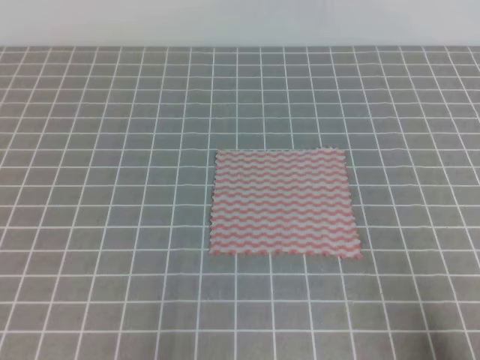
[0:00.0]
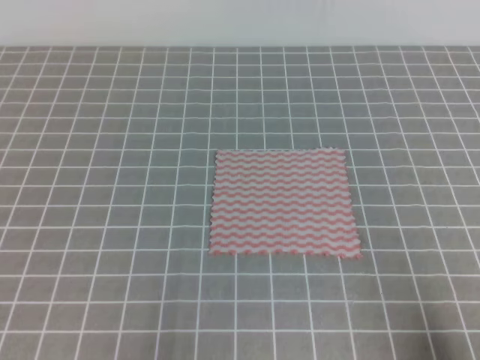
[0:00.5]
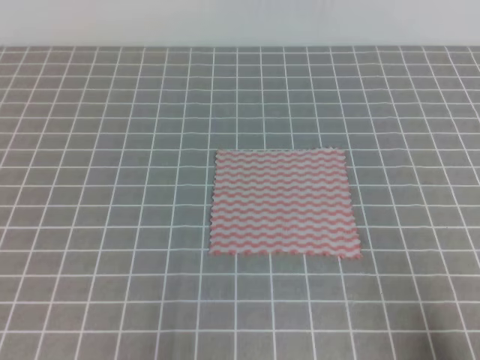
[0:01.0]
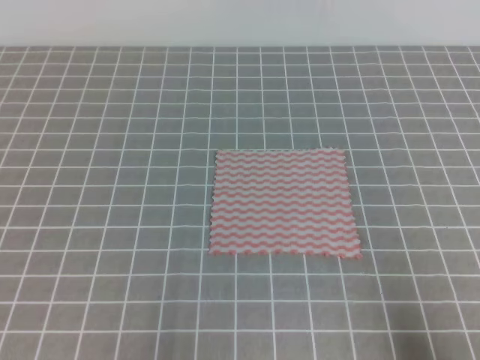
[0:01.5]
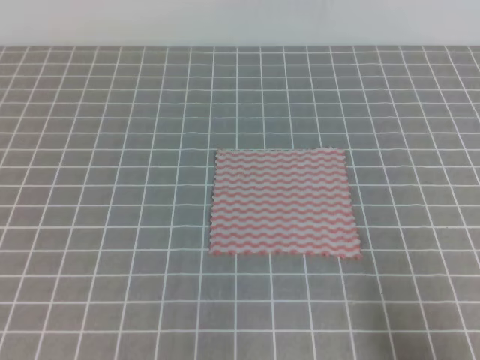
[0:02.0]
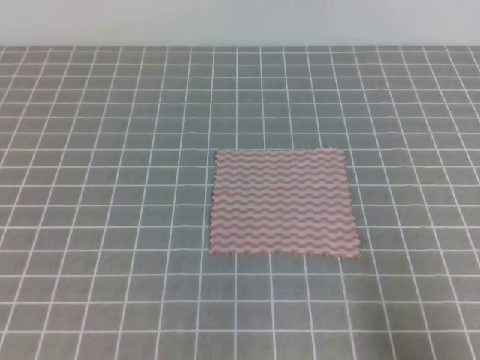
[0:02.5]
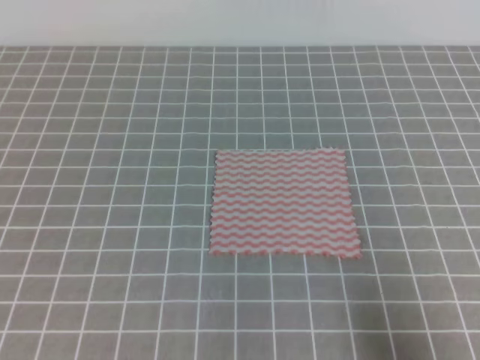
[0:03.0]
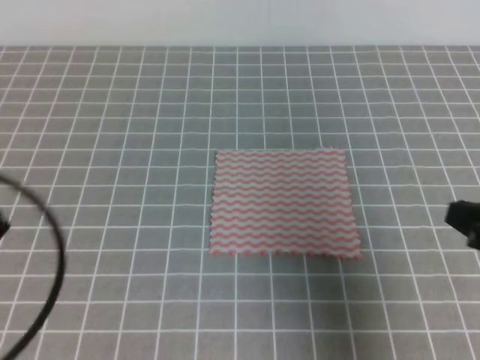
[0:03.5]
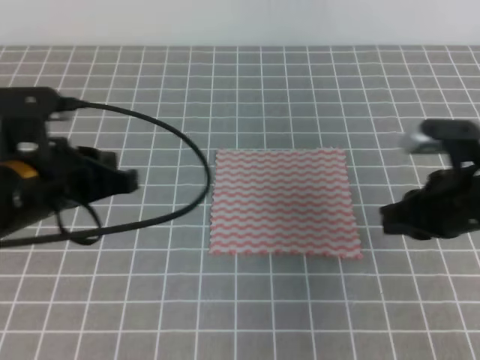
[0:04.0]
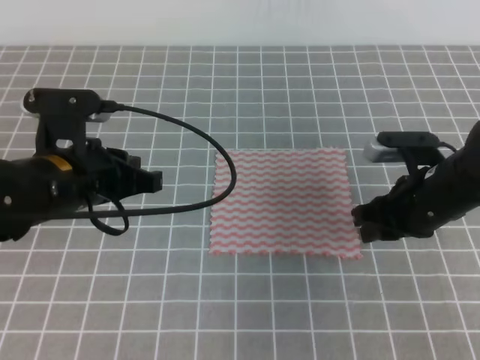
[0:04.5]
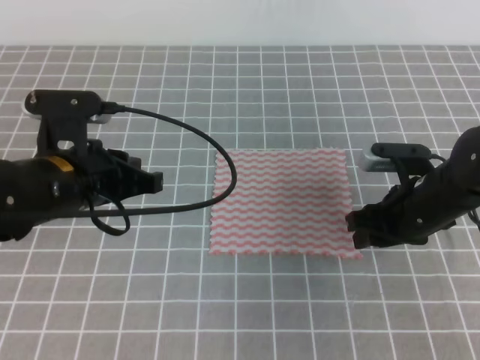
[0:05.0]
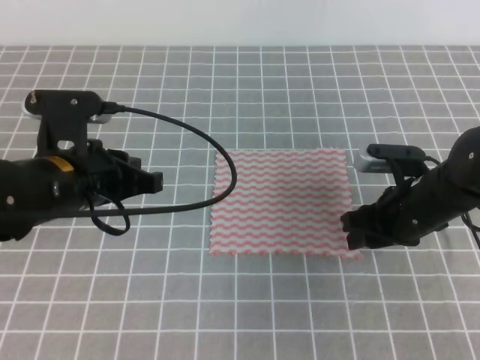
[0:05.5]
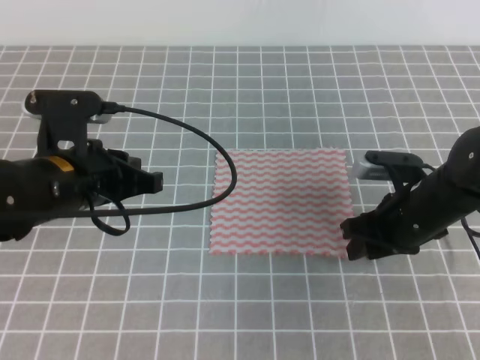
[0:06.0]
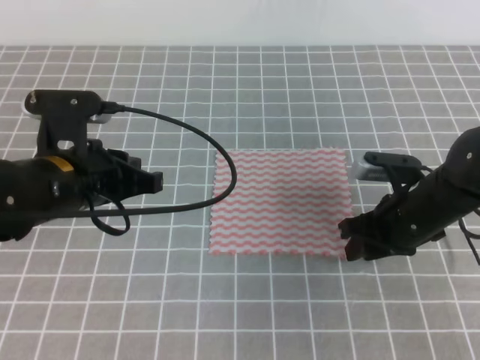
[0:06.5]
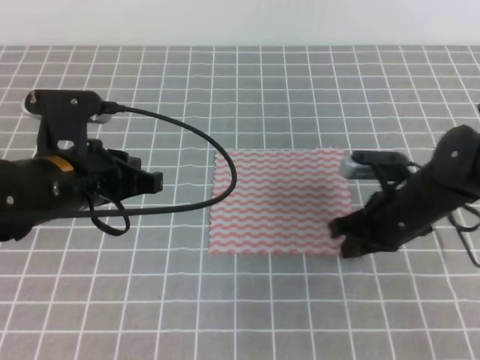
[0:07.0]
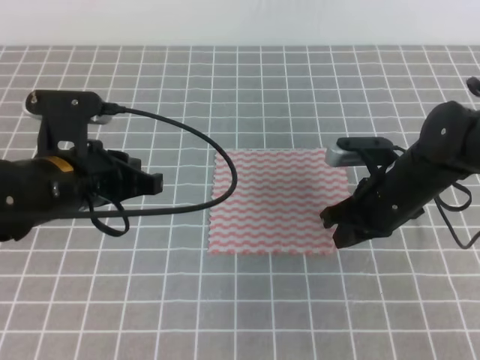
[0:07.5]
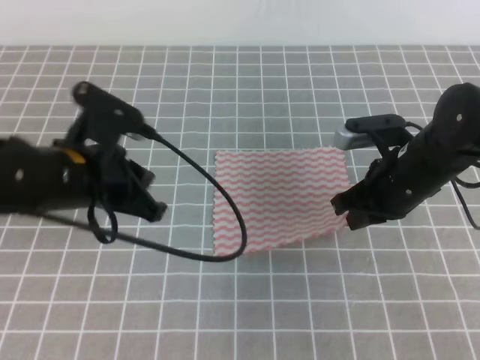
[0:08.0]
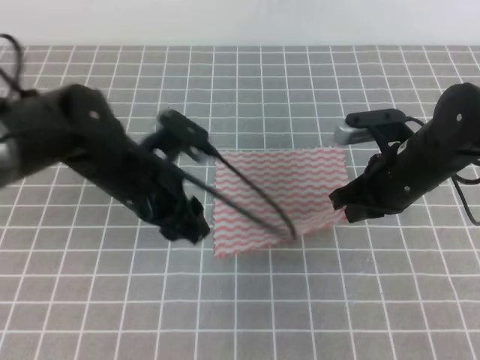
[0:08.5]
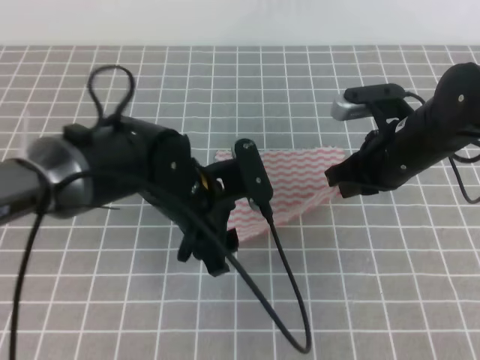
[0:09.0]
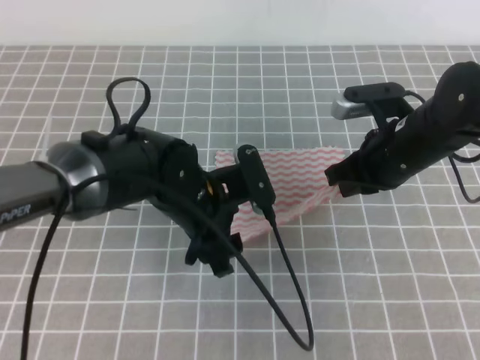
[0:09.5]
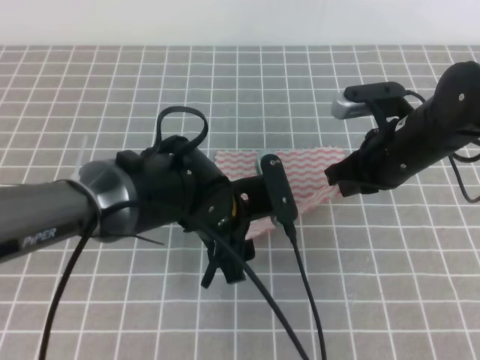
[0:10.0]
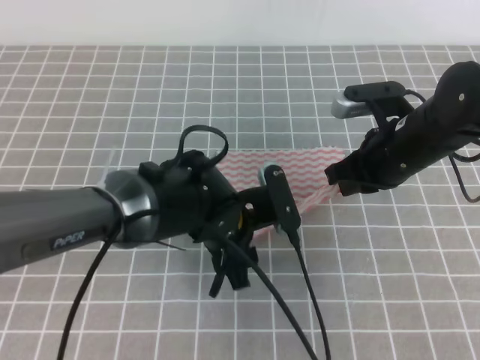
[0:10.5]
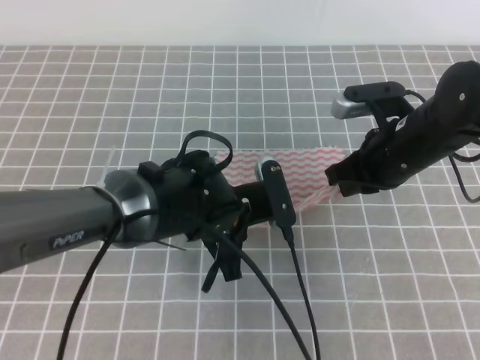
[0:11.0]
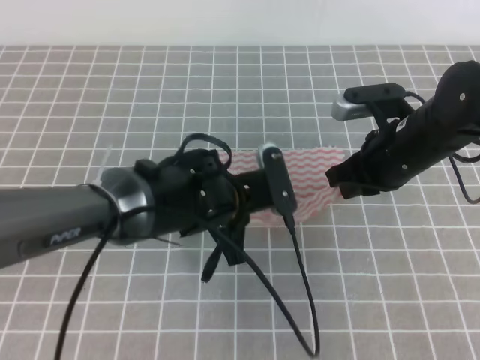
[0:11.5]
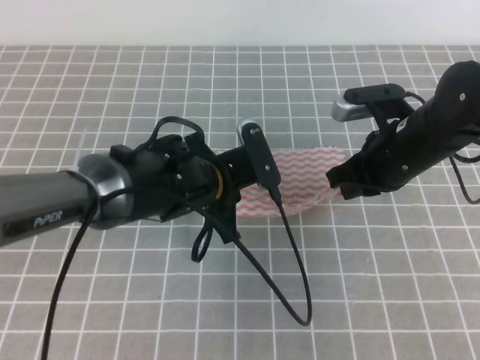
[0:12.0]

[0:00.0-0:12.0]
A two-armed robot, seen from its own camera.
0:02.0 to 0:04.0: The left gripper is displaced forward and upward by roughly 20 cm. Meanwhile the right gripper travels forward by approximately 20 cm.
0:04.0 to 0:06.0: The right gripper travels downward by roughly 5 cm, and opens.
0:06.0 to 0:08.0: The right gripper closes its fingers.
0:08.0 to 0:10.0: The left gripper is displaced to the right and downward by some 15 cm, and opens its fingers.
0:10.0 to 0:12.0: The left gripper closes its fingers.

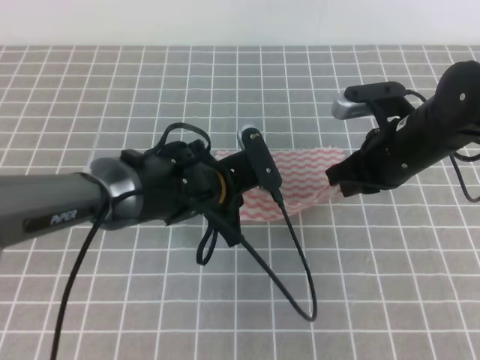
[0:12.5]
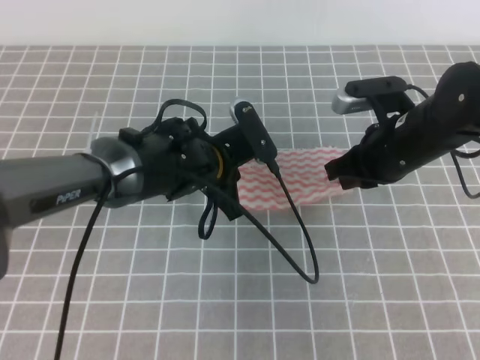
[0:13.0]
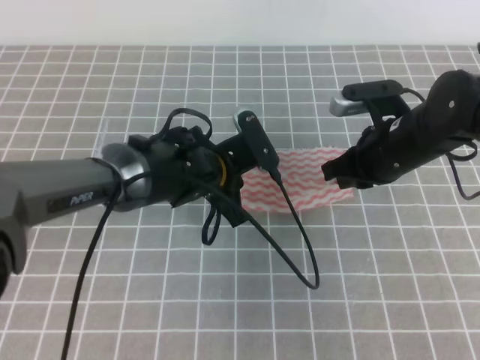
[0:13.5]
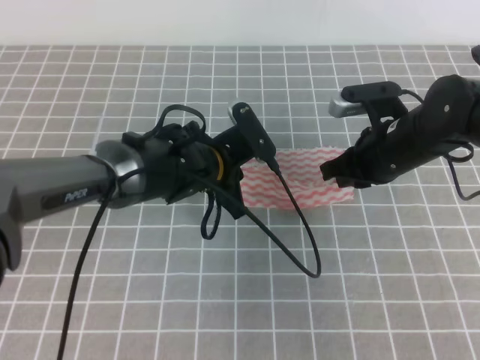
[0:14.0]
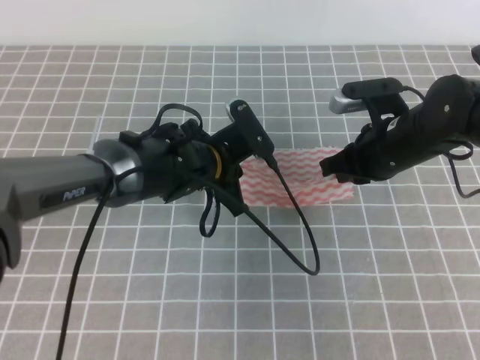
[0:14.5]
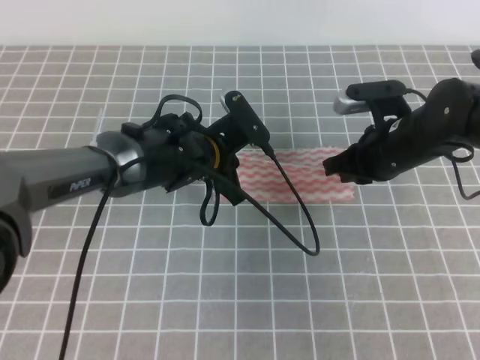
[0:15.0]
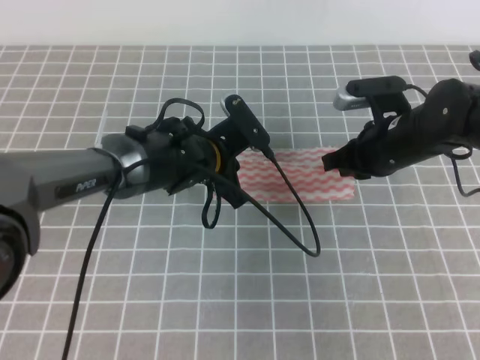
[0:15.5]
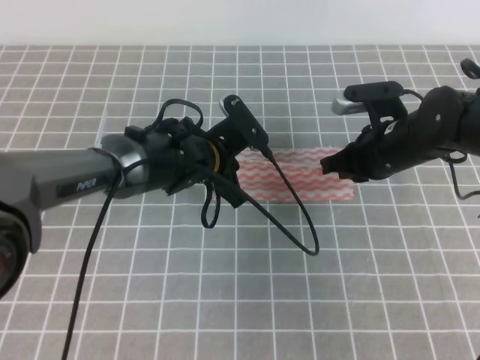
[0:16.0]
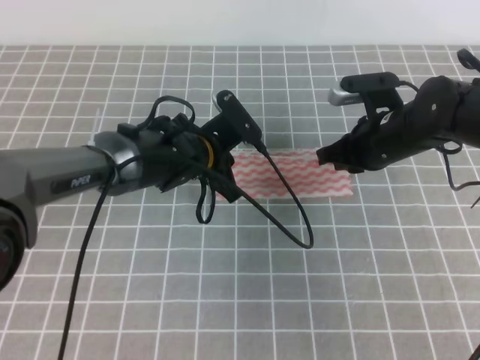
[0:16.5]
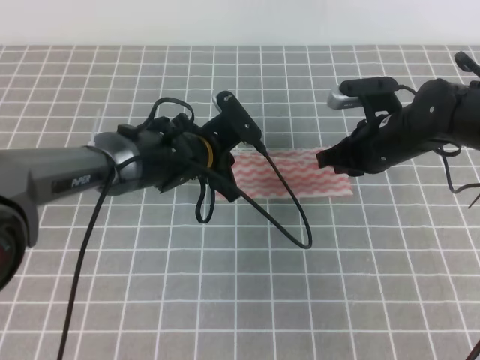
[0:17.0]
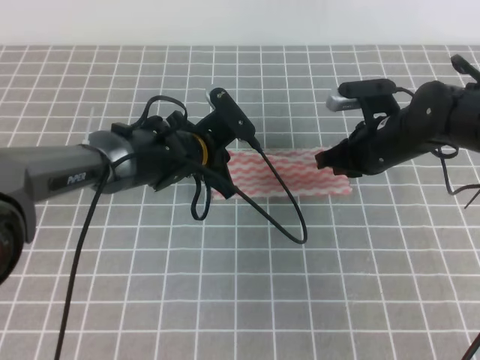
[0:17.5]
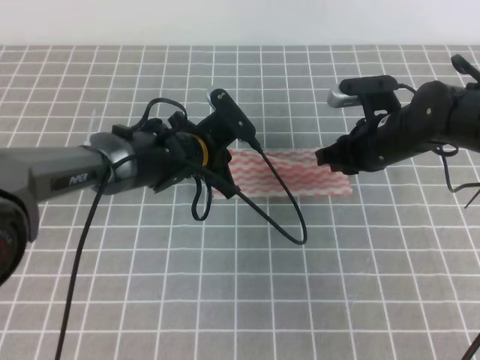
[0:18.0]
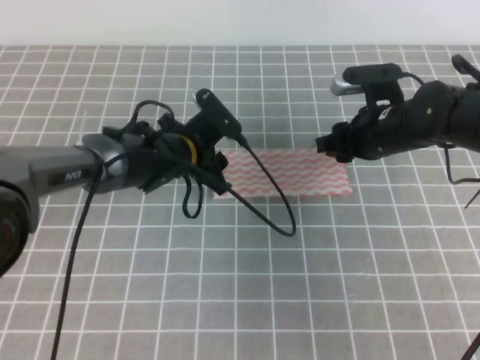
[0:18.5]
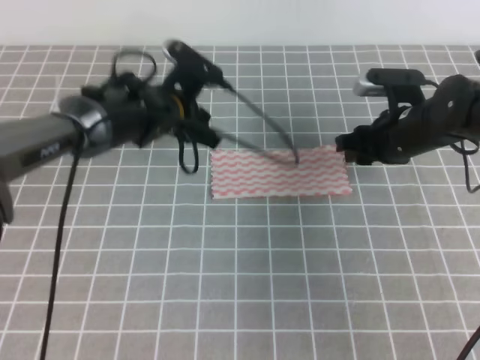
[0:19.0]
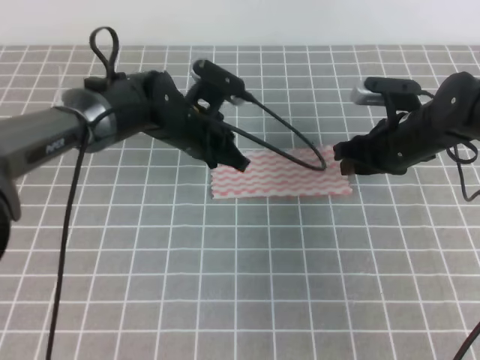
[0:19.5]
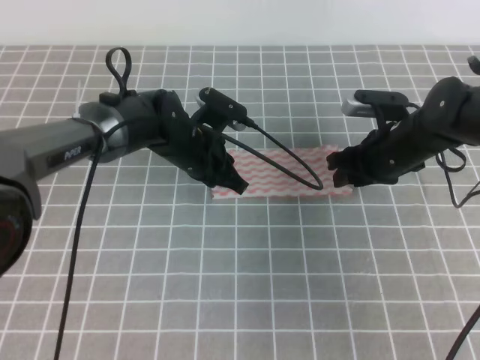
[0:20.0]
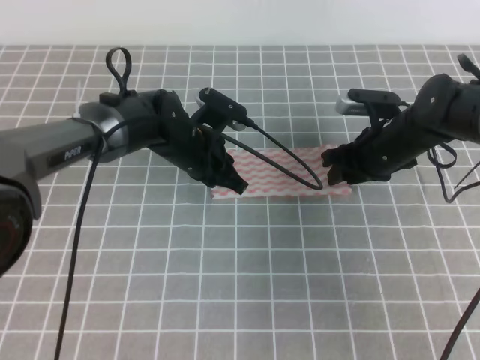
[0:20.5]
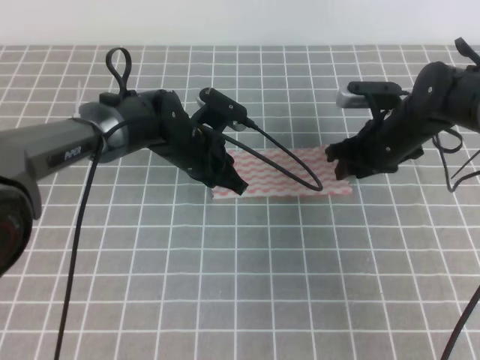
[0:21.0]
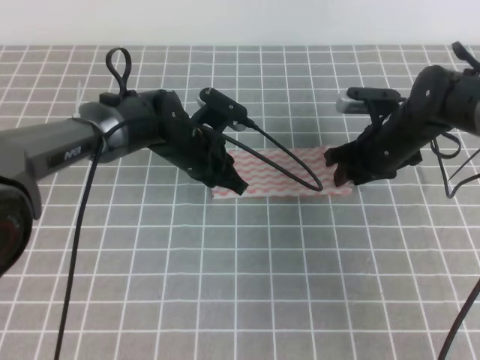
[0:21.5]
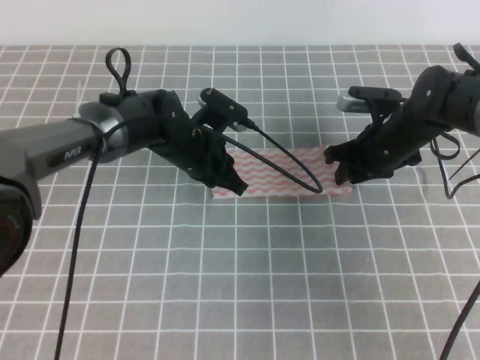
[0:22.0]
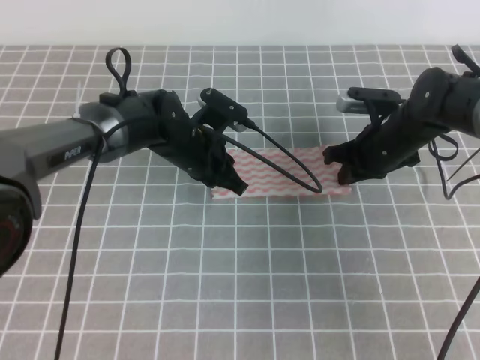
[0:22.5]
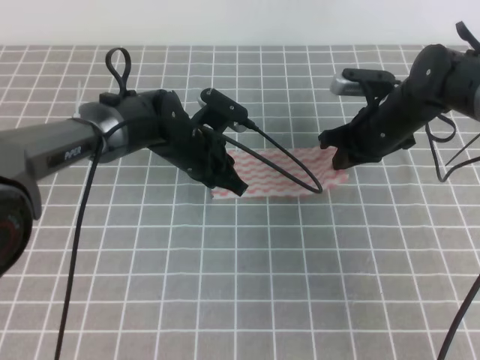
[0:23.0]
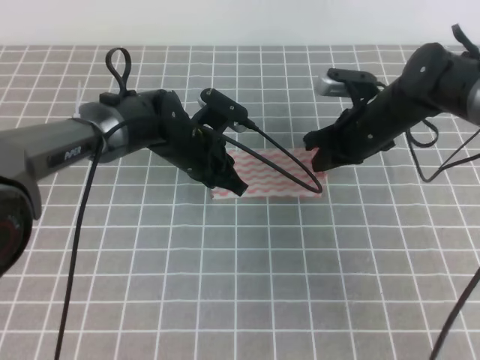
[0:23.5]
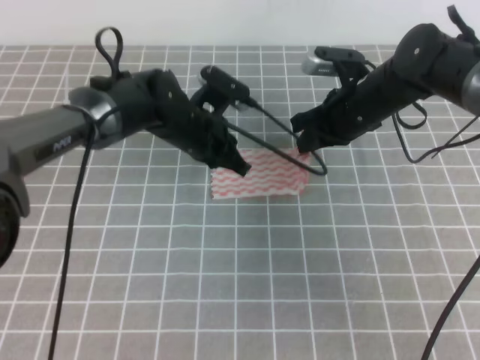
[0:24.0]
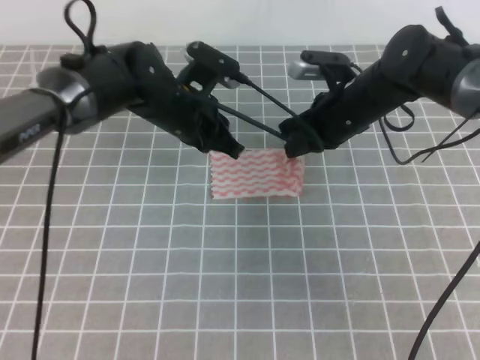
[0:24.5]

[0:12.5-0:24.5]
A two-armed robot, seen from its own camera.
0:12.5 to 0:14.5: The grippers move only a little.
0:14.5 to 0:16.5: The grippers stay close to where they were, moving slightly.
0:16.5 to 0:18.5: The left gripper opens its fingers; the right gripper opens.
0:18.5 to 0:20.5: The left gripper closes its fingers.
0:20.5 to 0:22.5: The right gripper closes up.
0:22.5 to 0:24.5: The right gripper is displaced upward and to the left by some 10 cm. The left gripper travels upward by some 5 cm.

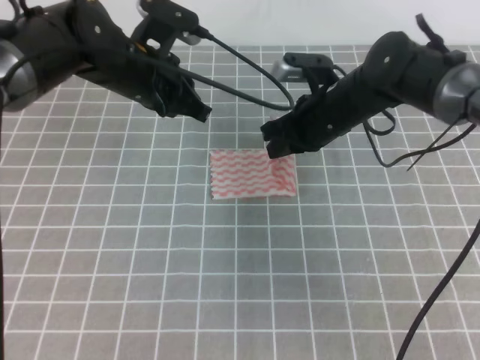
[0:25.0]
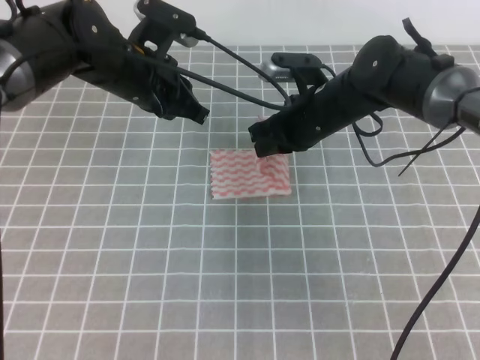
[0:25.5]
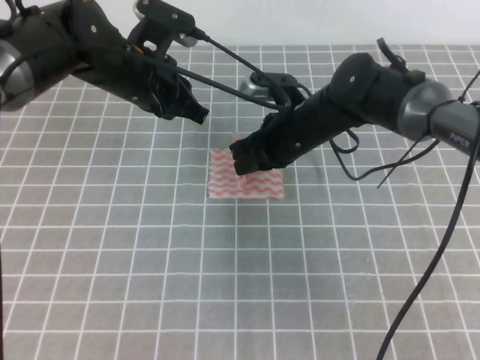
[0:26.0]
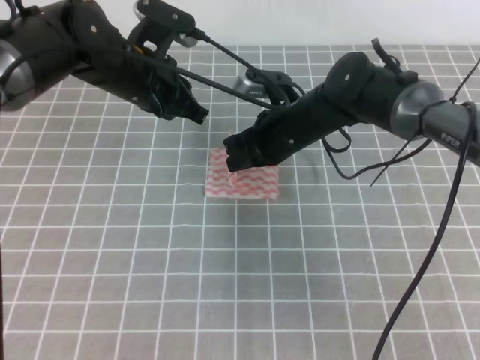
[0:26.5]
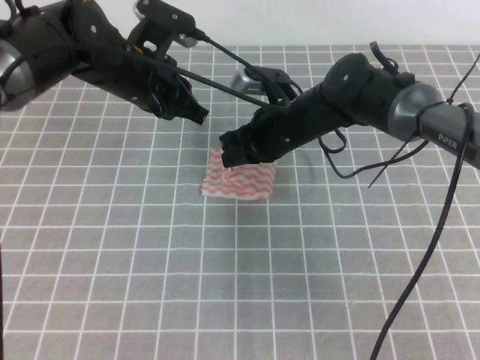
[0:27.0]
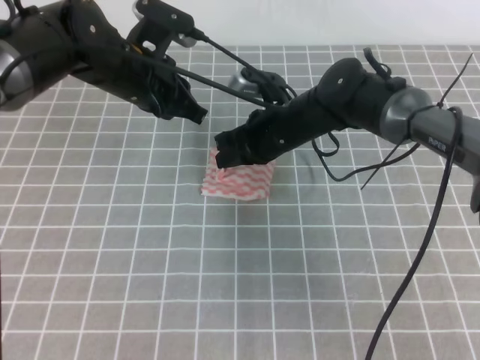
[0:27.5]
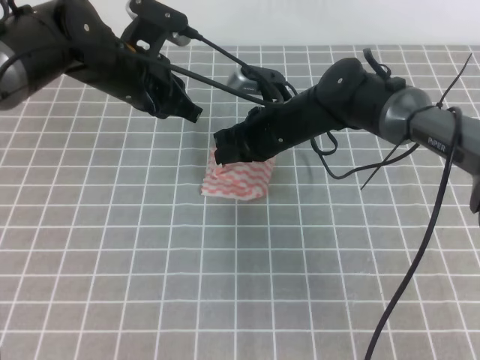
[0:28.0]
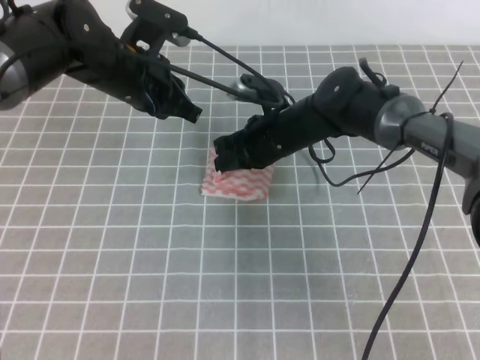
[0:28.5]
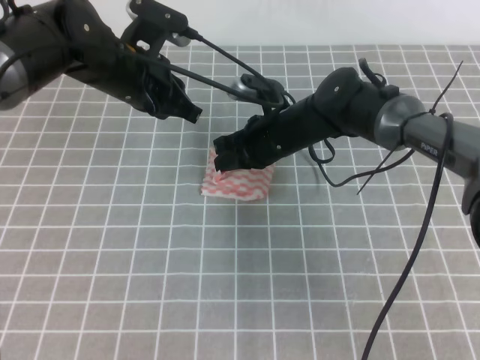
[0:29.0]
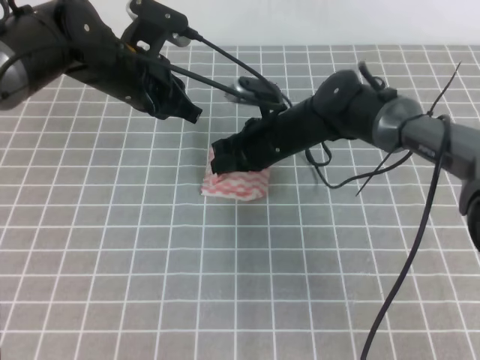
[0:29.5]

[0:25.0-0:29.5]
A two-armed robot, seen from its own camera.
0:25.0 to 0:27.0: The right gripper travels to the left by approximately 5 cm.
0:27.0 to 0:29.5: There are only small adjustments of the grippers.
